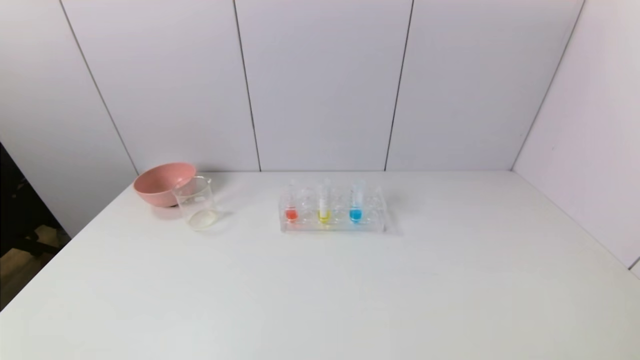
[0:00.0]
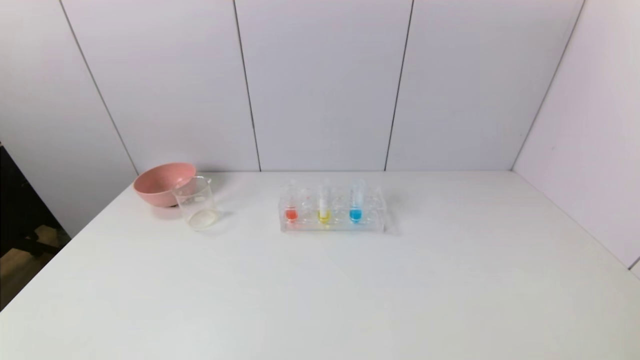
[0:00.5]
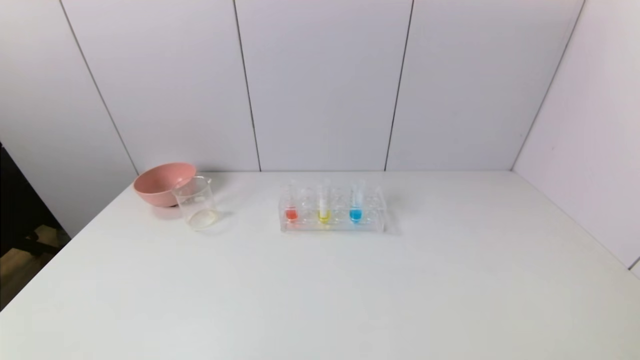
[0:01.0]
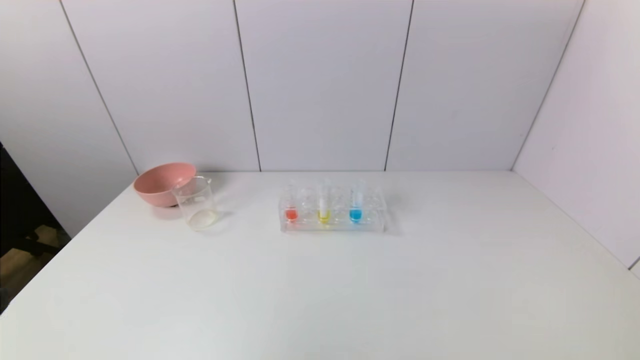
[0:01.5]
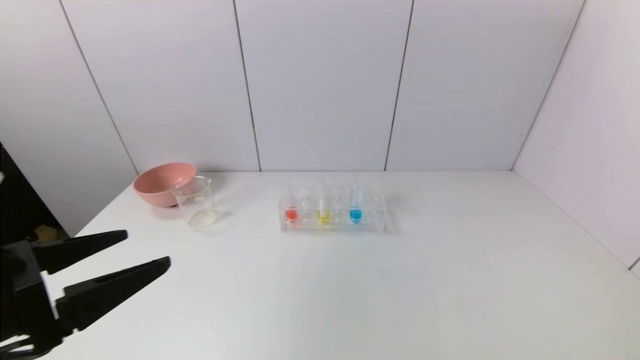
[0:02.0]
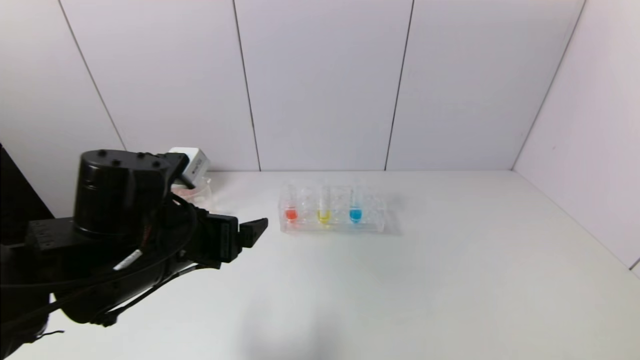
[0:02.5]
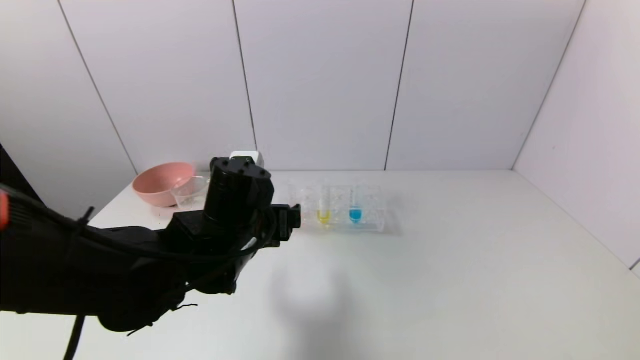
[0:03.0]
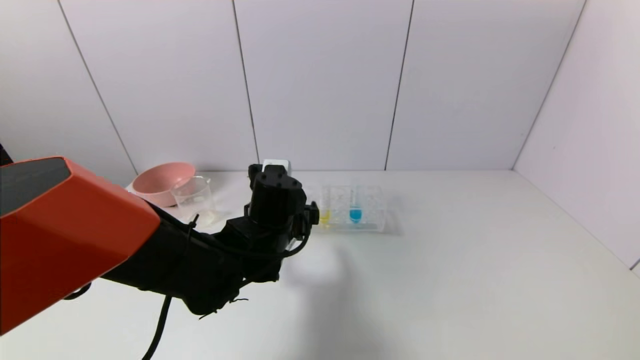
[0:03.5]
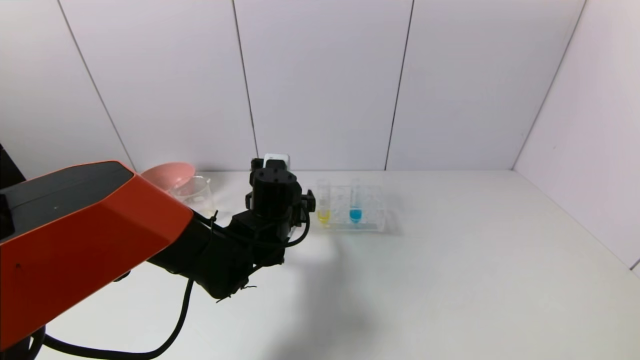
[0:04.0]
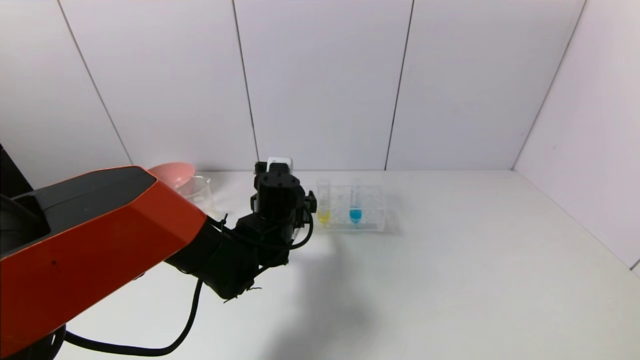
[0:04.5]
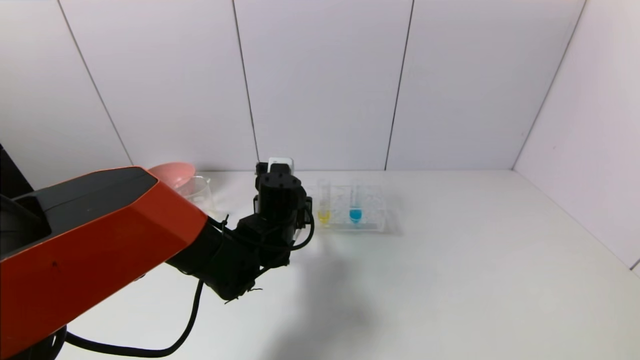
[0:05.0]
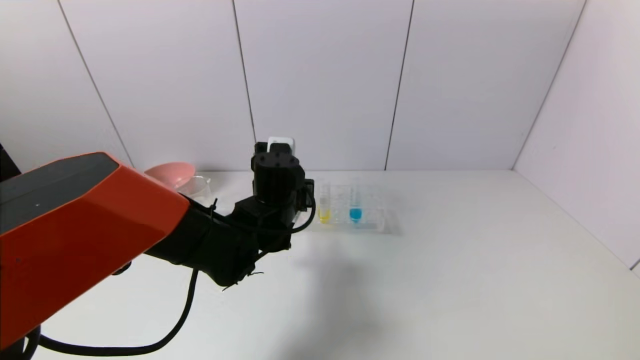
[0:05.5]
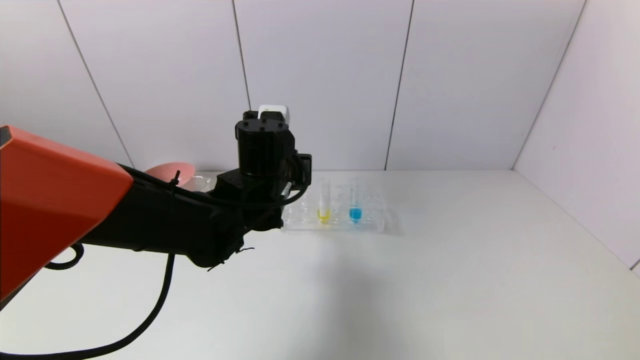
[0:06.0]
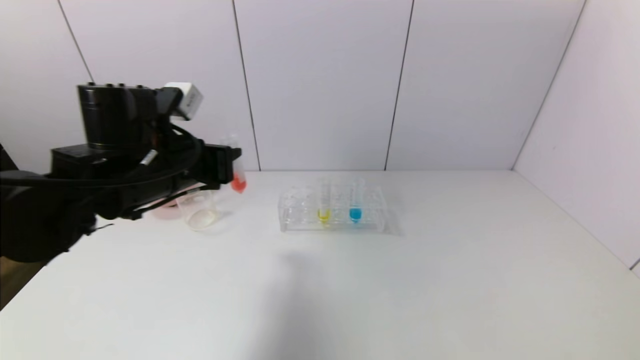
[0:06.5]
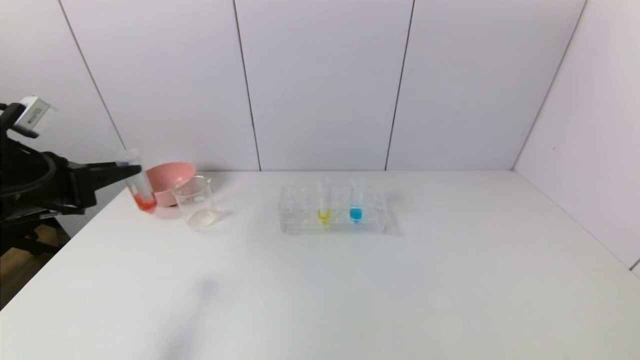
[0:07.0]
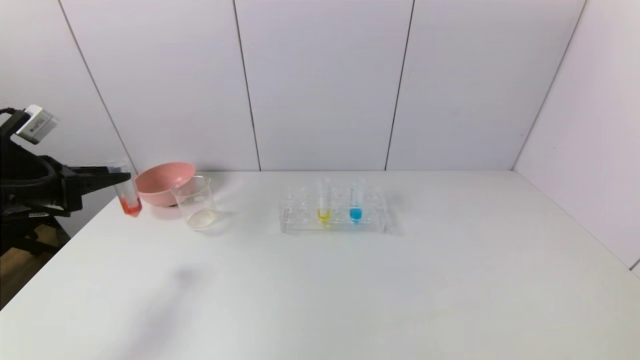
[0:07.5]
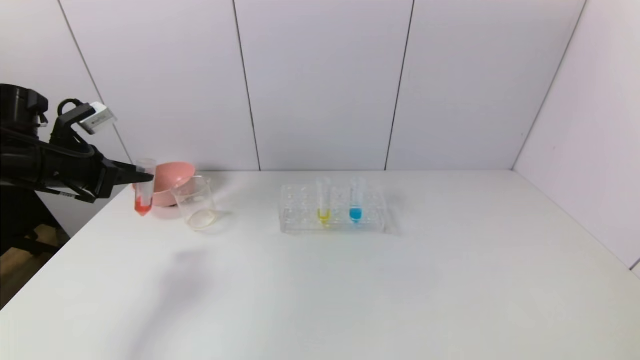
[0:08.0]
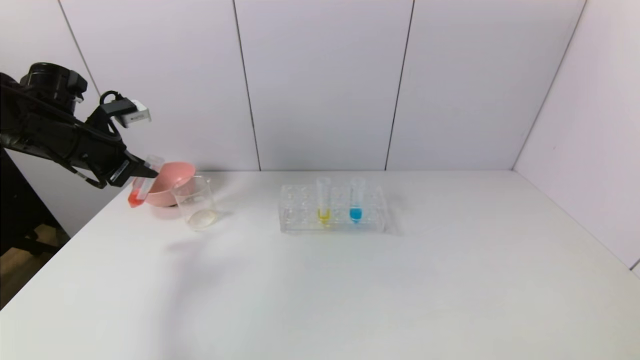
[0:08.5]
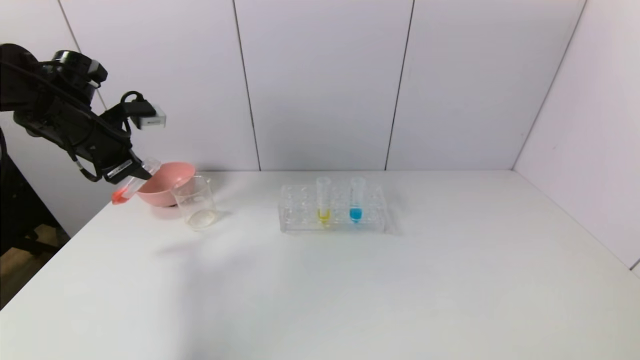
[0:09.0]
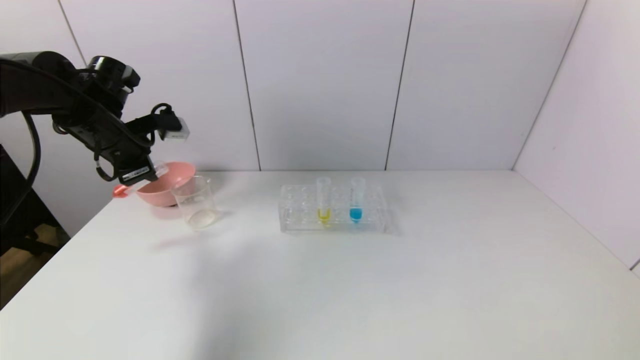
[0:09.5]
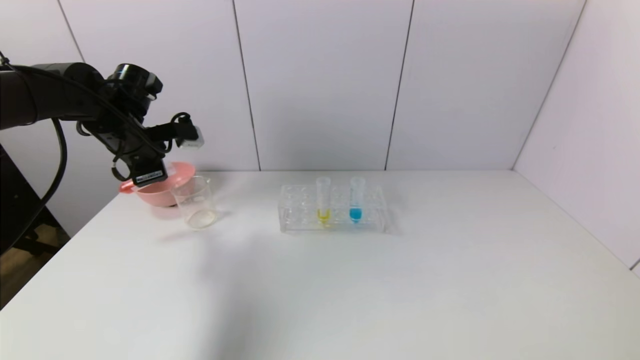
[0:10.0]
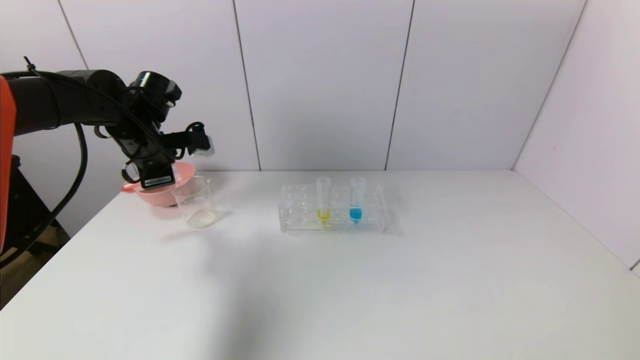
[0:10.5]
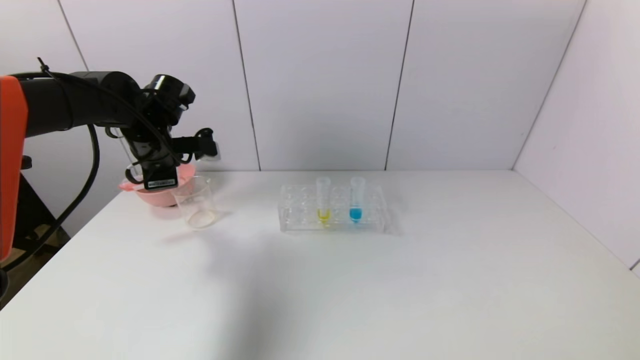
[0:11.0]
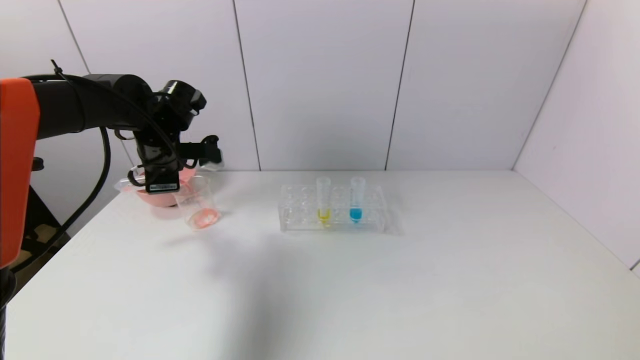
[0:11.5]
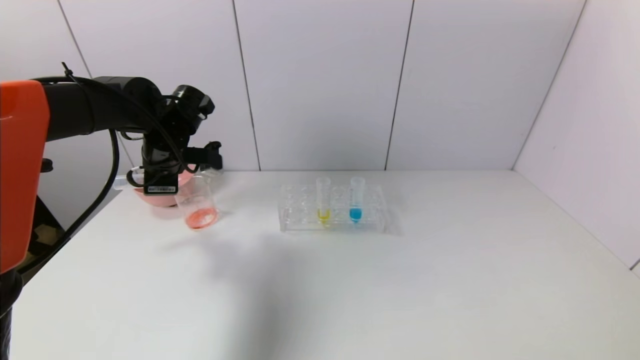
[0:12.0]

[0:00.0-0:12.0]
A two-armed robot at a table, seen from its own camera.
Task of the whole recording: pick up the test tube with yellow pigment and the test tube with red pigment by grippers and pour them into the beaker.
Step, 0:00.0 to 0:05.0: Grasp the red reagent with the left gripper.
0:00.0 to 0:02.0: The left gripper moves upward and forward, about 20 cm.
0:02.0 to 0:04.0: The left gripper travels forward, to the right and downward by some 30 cm.
0:04.0 to 0:06.0: The left gripper shifts some 10 cm upward, and closes its fingers.
0:06.0 to 0:08.0: The left gripper shifts about 30 cm to the left.
0:08.0 to 0:10.0: The left gripper moves to the right and forward, roughly 10 cm.
0:10.0 to 0:12.0: The left gripper moves to the right, some 5 cm.

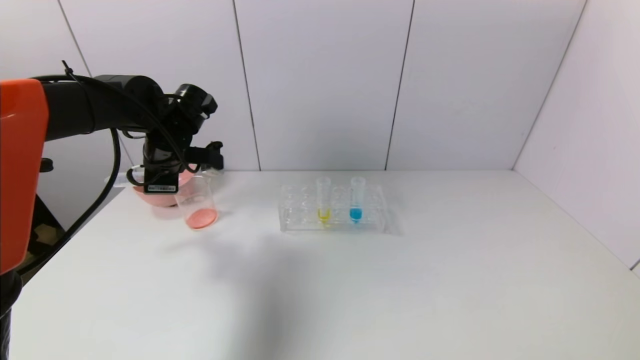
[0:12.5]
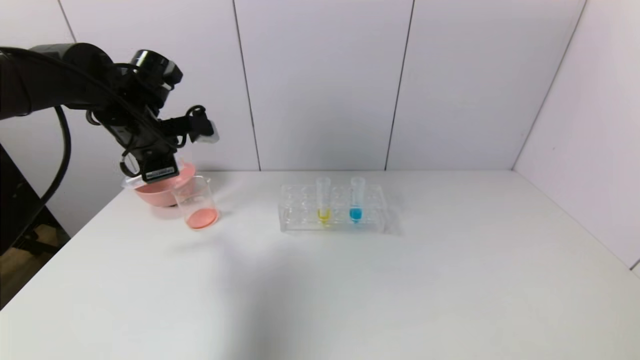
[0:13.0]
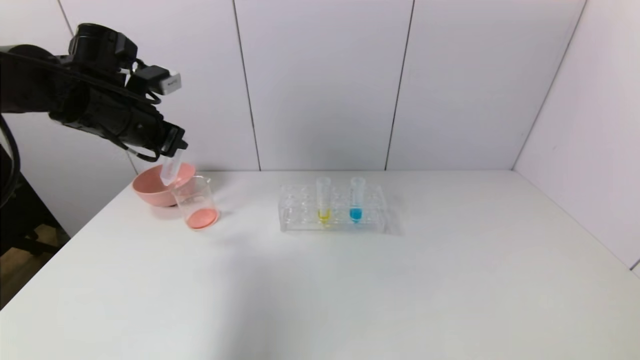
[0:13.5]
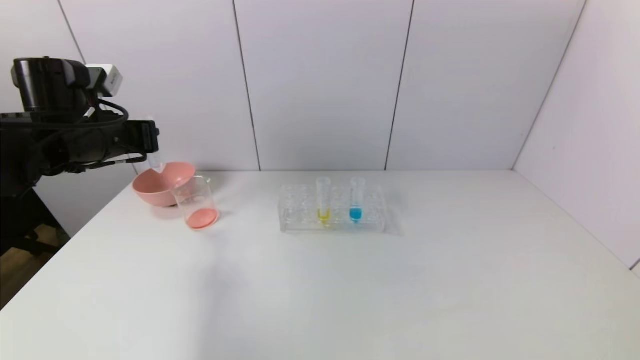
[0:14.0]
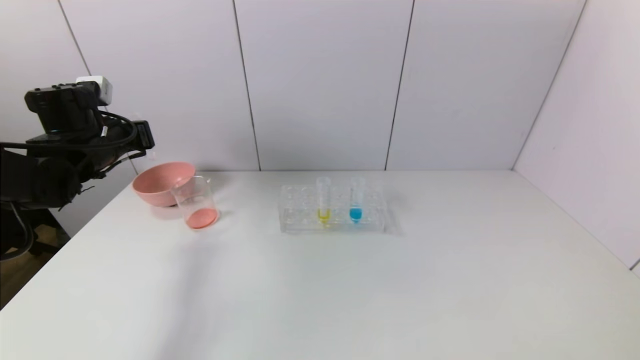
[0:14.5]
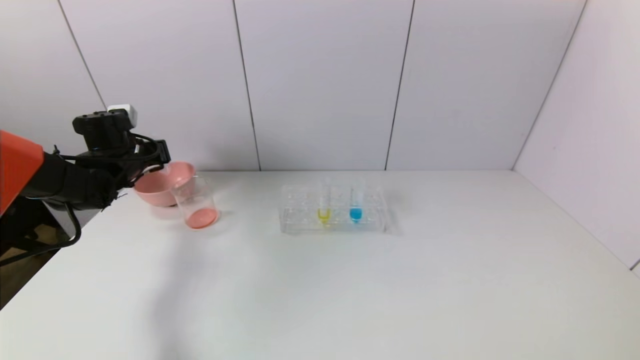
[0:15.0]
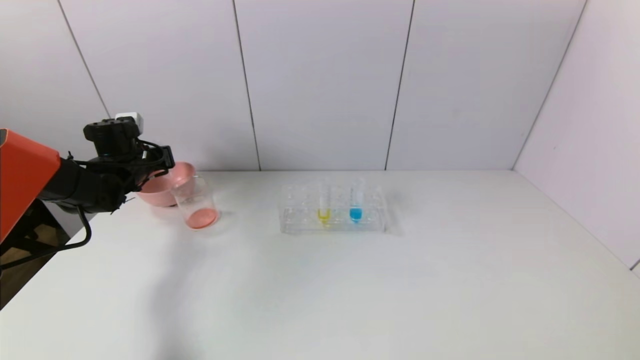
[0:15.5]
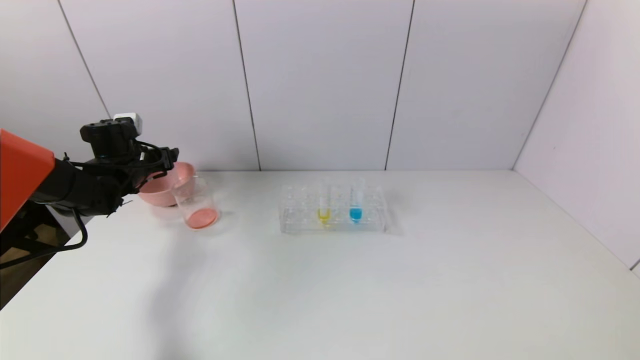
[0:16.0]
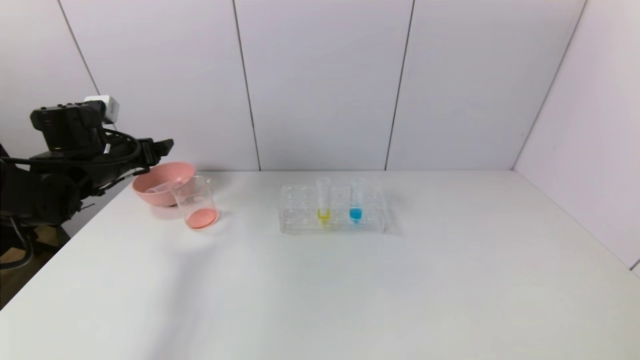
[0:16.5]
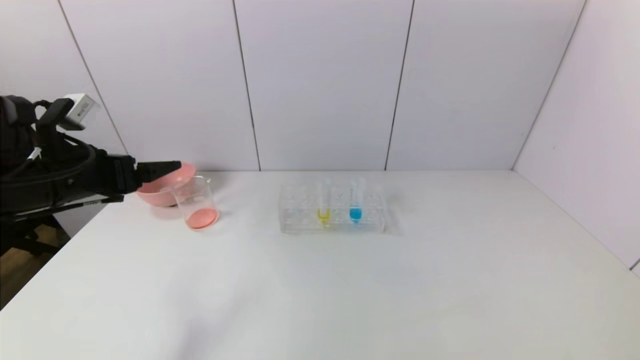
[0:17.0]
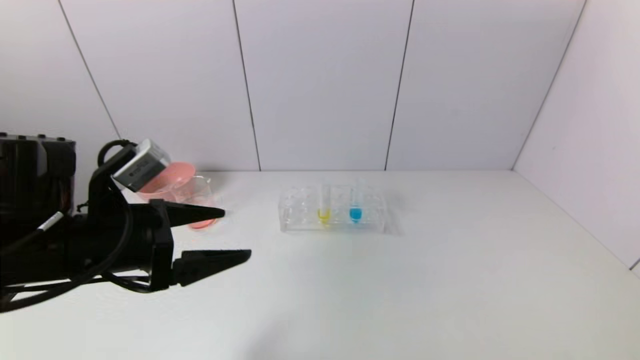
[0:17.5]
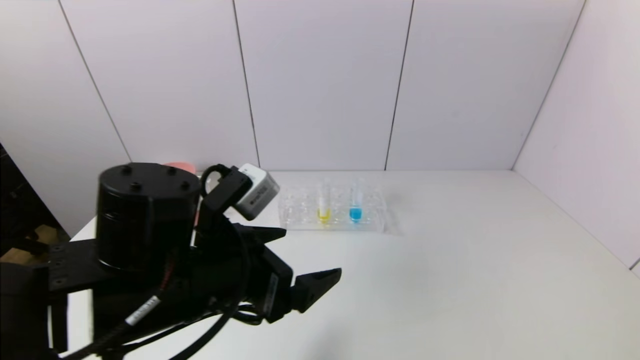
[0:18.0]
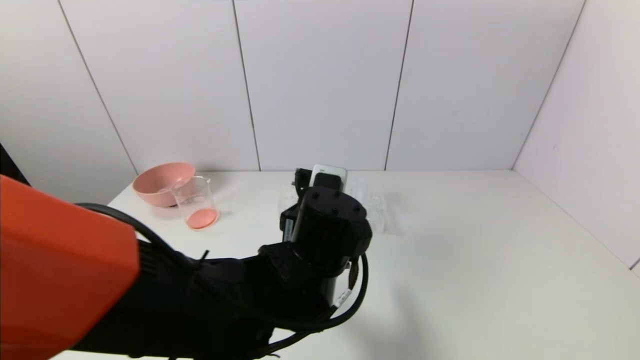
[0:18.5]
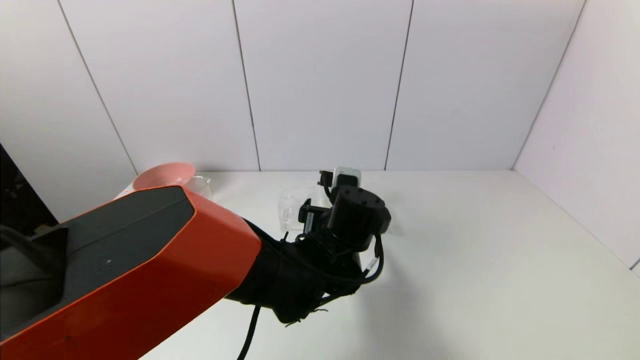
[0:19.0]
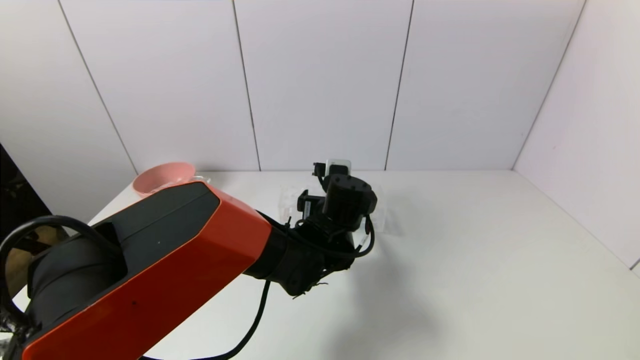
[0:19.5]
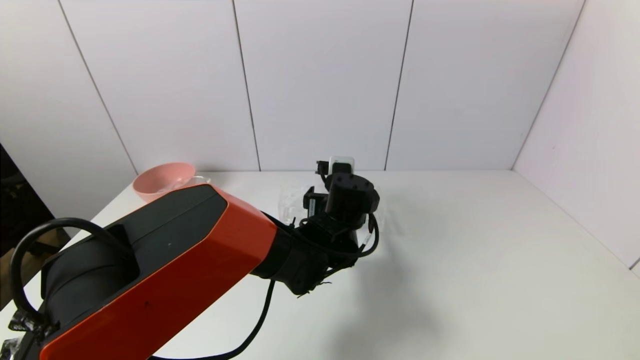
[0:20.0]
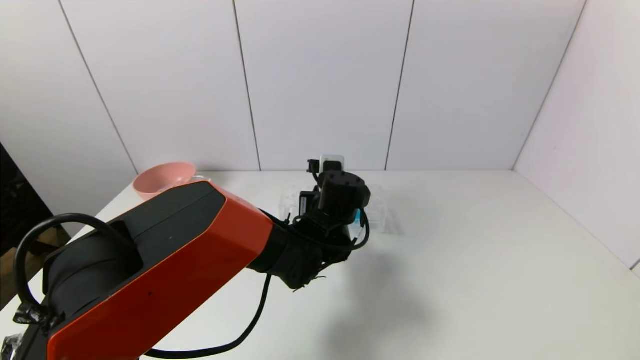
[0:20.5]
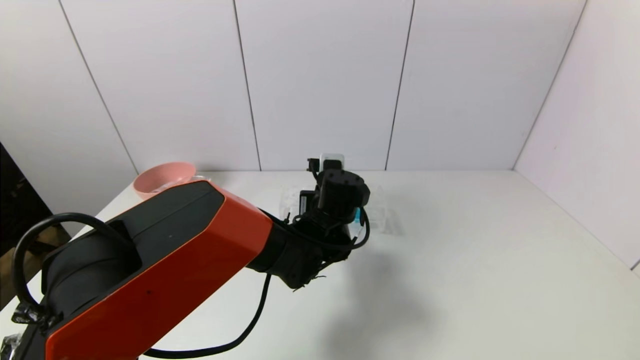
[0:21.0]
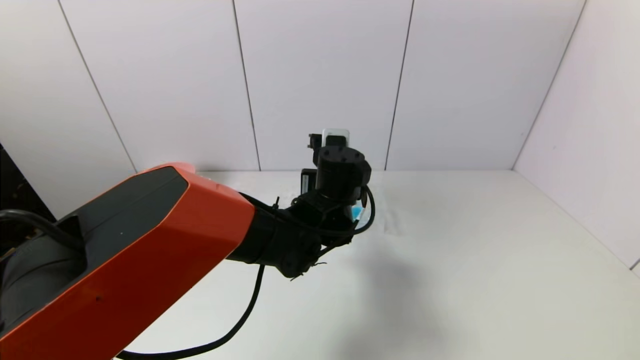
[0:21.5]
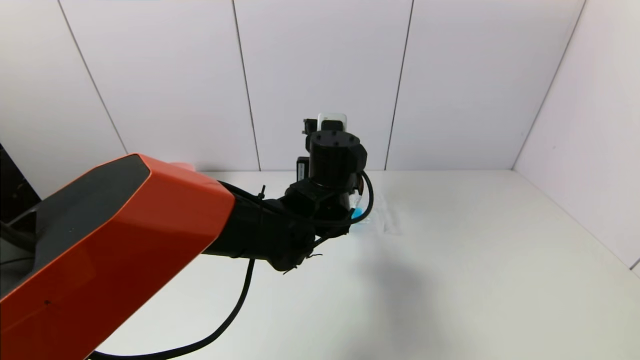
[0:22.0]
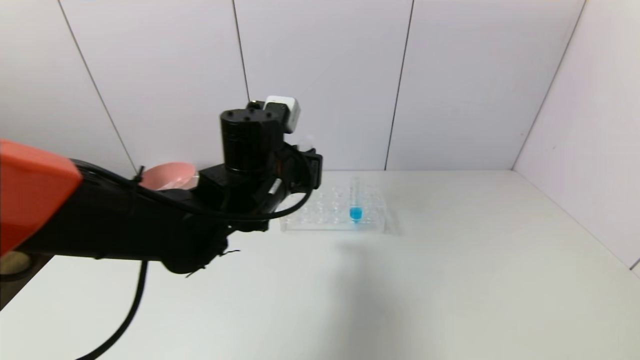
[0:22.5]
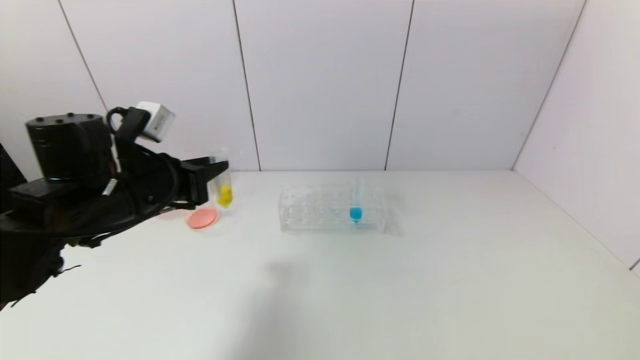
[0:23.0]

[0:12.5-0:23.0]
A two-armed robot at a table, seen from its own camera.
Task of the whole recording: pick up the test tube with yellow pigment and the test tube with red pigment by grippers and pour them into the beaker.
Step, 0:12.5 to 0:16.0: Place the test tube into the pink bowl with the left gripper.
Step, 0:16.5 to 0:20.5: Grasp the yellow reagent with the left gripper.
0:12.5 to 0:14.5: The left gripper goes roughly 10 cm to the left.
0:14.5 to 0:16.5: The left gripper travels forward and back again, roughly 5 cm each way, and opens up.
0:16.5 to 0:19.0: The left gripper heads to the right, covering about 35 cm.
0:19.0 to 0:21.0: The left gripper is displaced forward by some 5 cm, and closes its fingers.
0:21.0 to 0:23.0: The left gripper travels to the left by about 25 cm.
